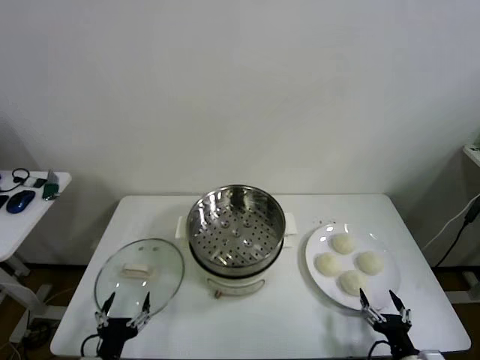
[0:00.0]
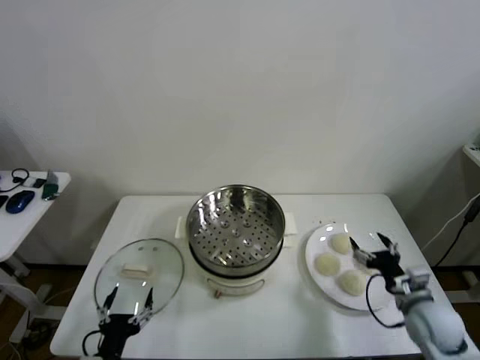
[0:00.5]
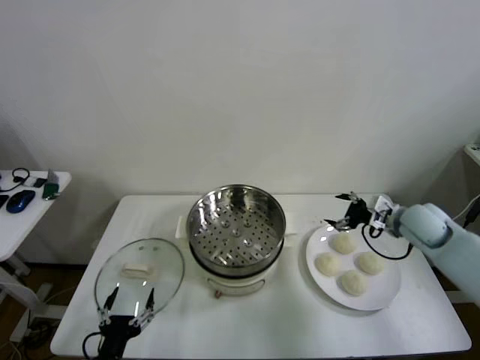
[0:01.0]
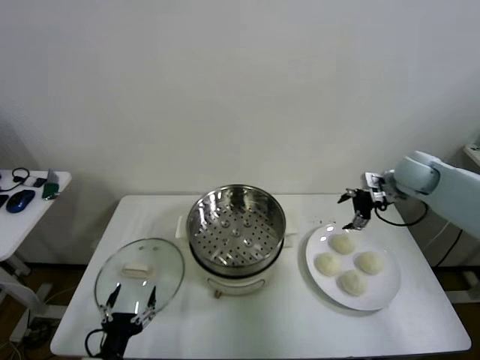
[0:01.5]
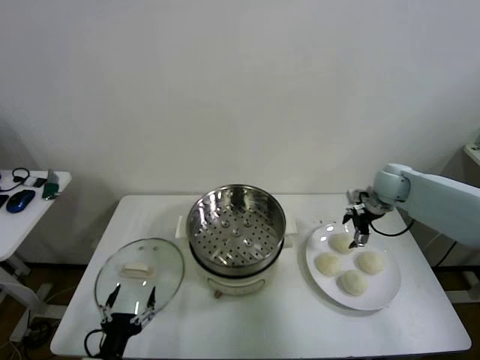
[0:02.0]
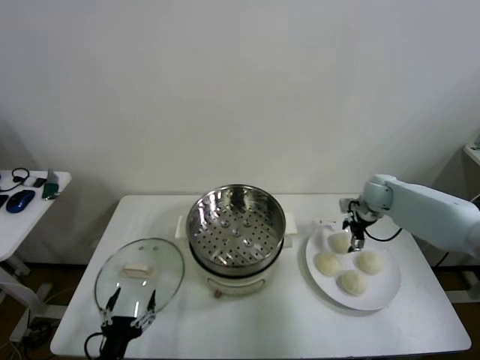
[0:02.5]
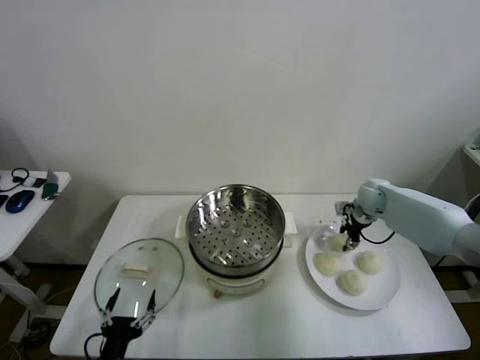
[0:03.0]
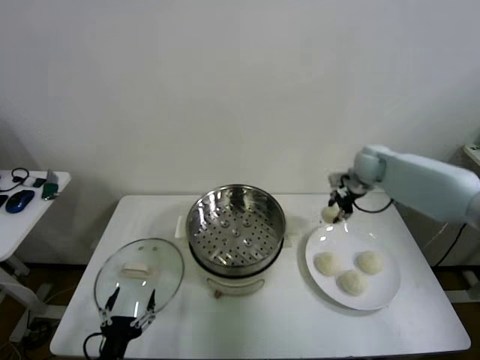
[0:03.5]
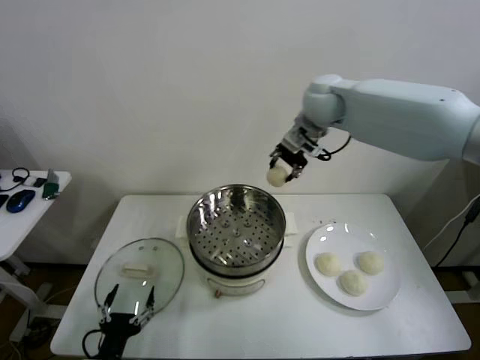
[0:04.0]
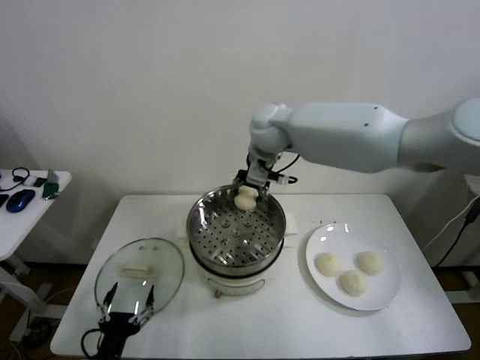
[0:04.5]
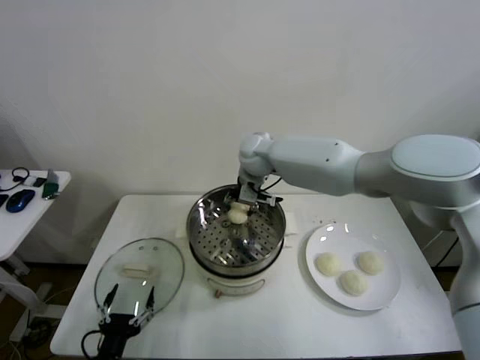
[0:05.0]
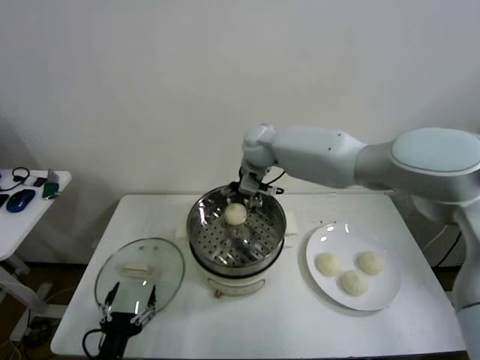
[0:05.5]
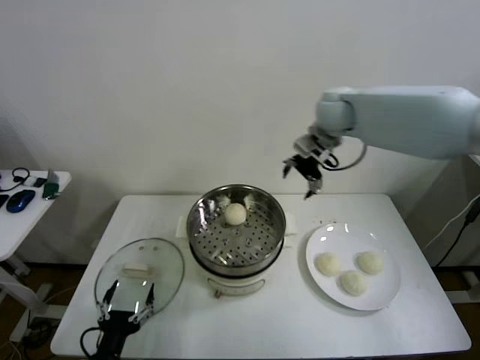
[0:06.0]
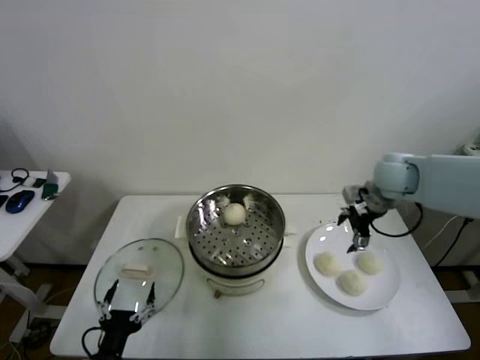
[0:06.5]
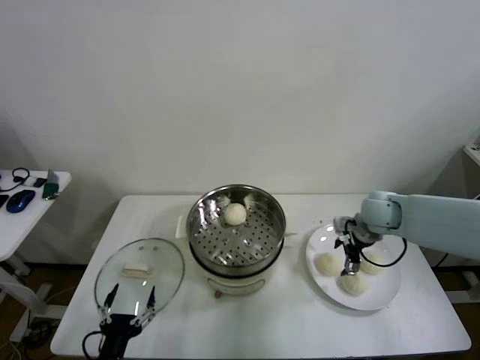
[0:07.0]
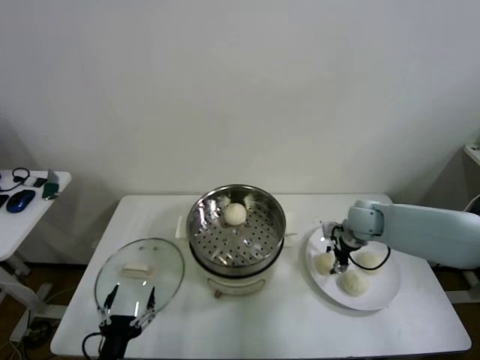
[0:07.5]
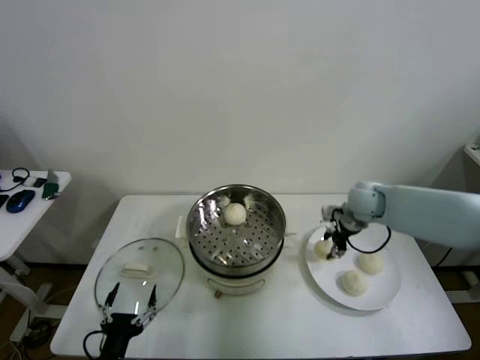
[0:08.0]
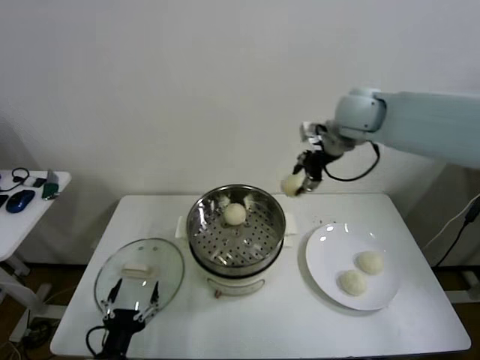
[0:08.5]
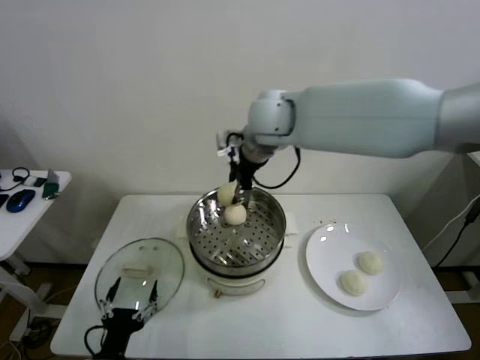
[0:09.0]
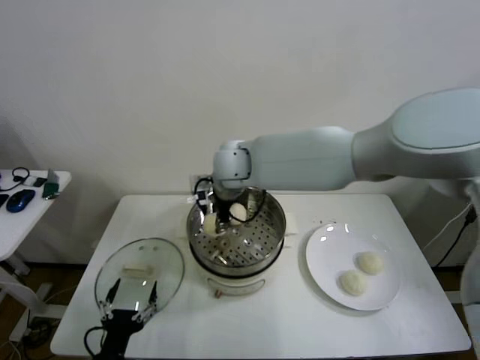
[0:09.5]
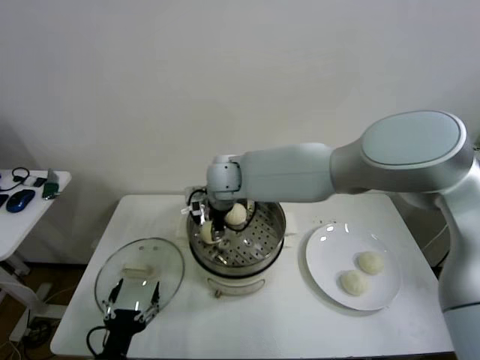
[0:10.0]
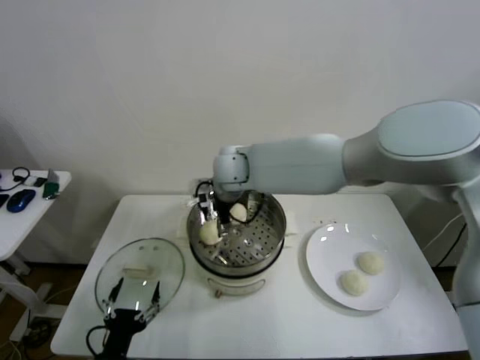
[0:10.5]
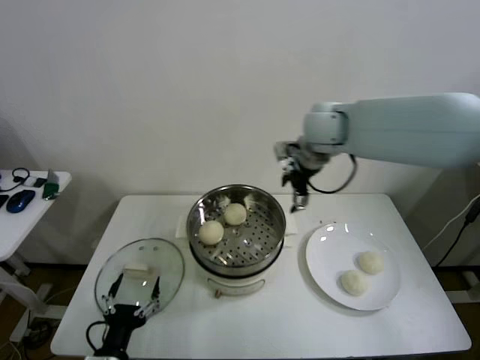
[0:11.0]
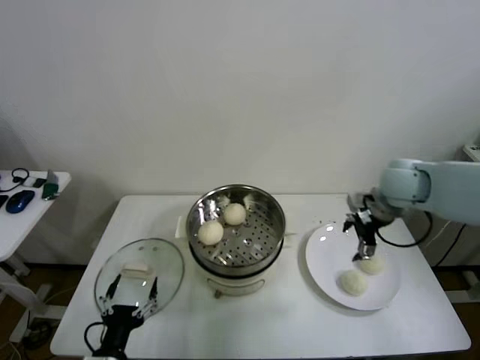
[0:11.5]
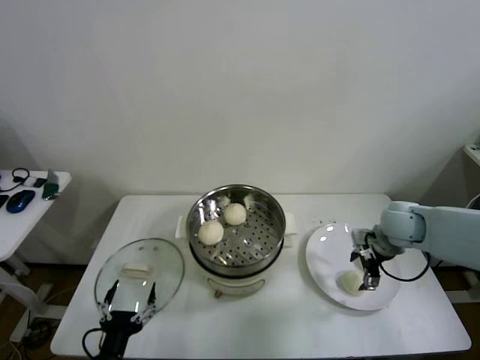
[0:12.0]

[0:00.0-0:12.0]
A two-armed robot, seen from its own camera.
Step, 0:00.0 to 0:02.5: Grasp the baozi in the plate with right gripper.
Step, 0:03.5 to 0:05.0: Place the baozi on the steamer with right gripper.
Step, 0:05.5 to 0:07.5: Grasp the baozi in the plate with right gripper.
Step, 0:08.0 to 0:10.0: Place the baozi on the steamer with right gripper.
0:02.0 to 0:04.0: The right gripper goes some 35 cm to the left and upward, and closes up.
0:04.0 to 0:06.0: The right gripper moves to the right, about 10 cm, and opens its fingers.
0:06.0 to 0:08.0: The right gripper moves downward, some 20 cm, and closes its fingers.
0:08.0 to 0:10.0: The right gripper goes approximately 35 cm to the left.
0:10.0 to 0:12.0: The right gripper moves to the right, some 40 cm, and opens.

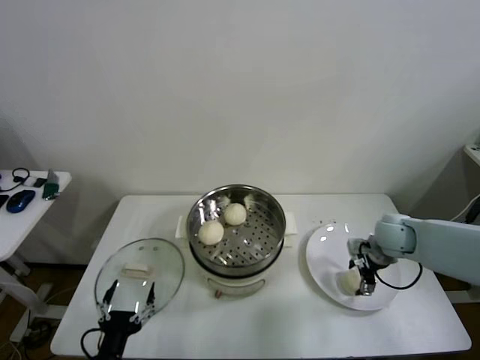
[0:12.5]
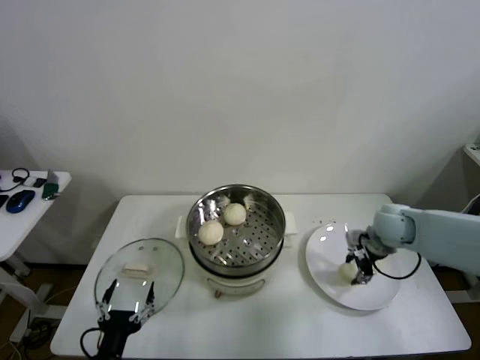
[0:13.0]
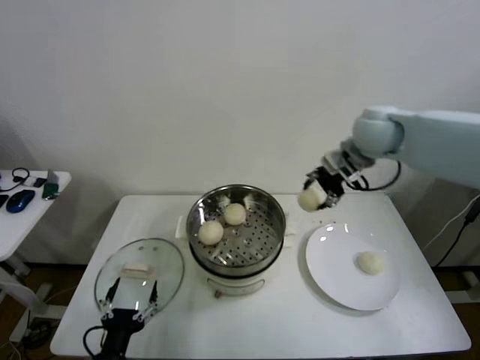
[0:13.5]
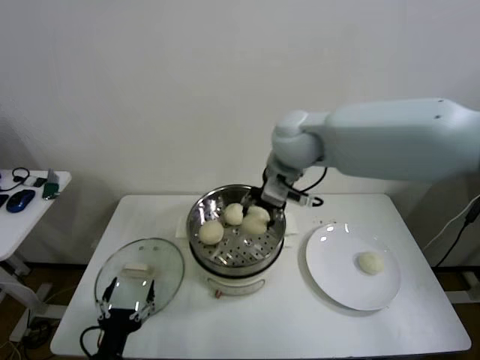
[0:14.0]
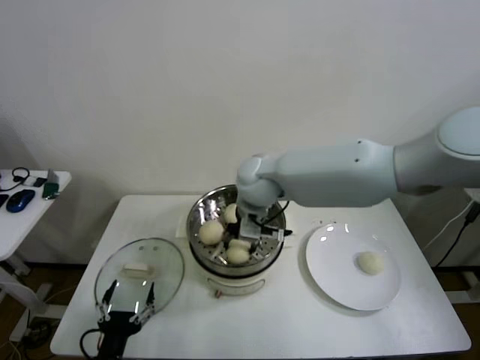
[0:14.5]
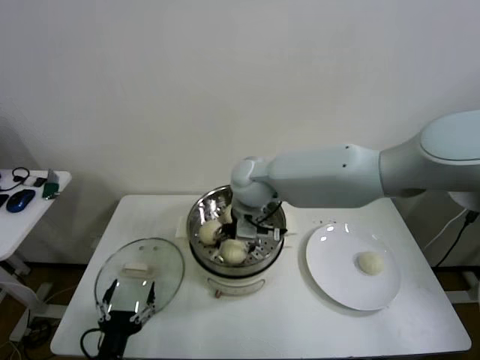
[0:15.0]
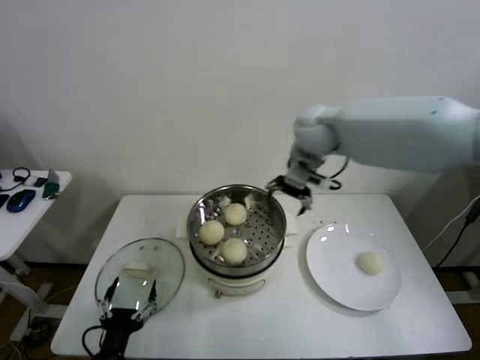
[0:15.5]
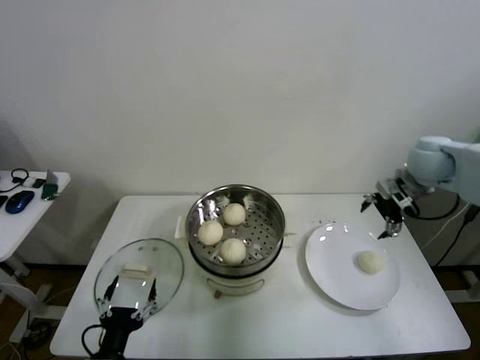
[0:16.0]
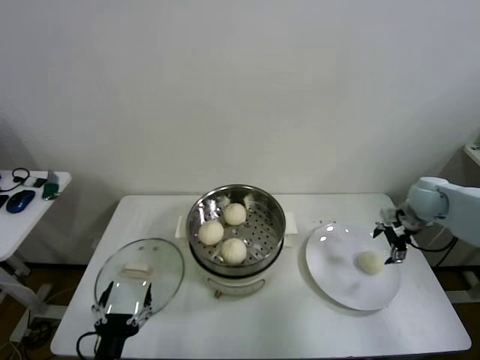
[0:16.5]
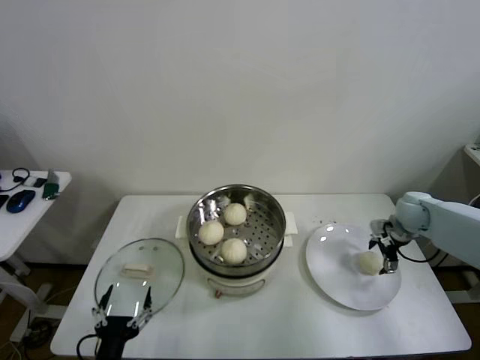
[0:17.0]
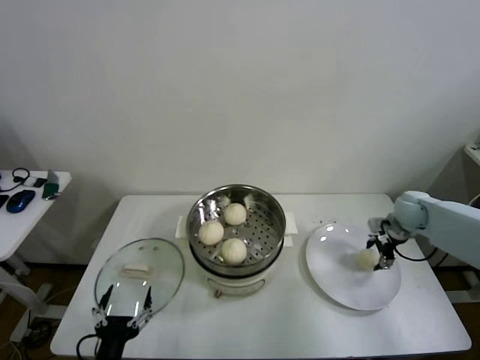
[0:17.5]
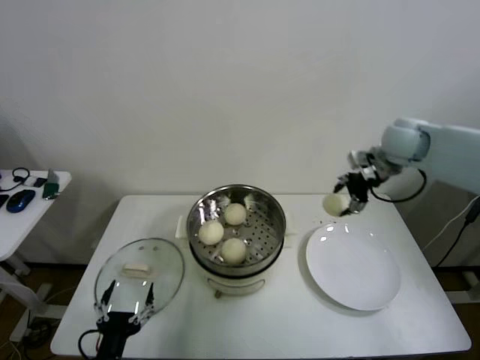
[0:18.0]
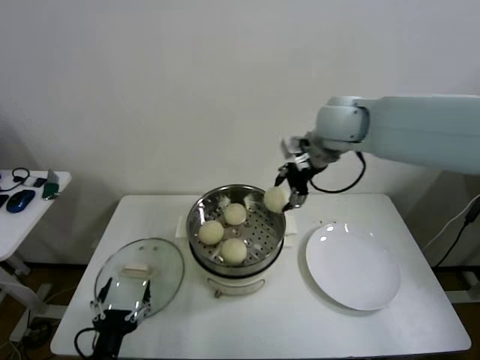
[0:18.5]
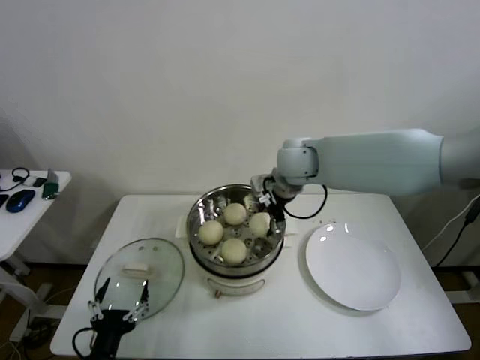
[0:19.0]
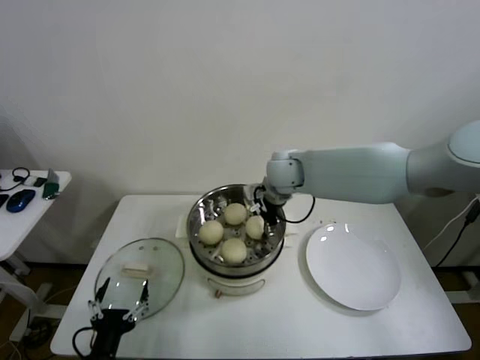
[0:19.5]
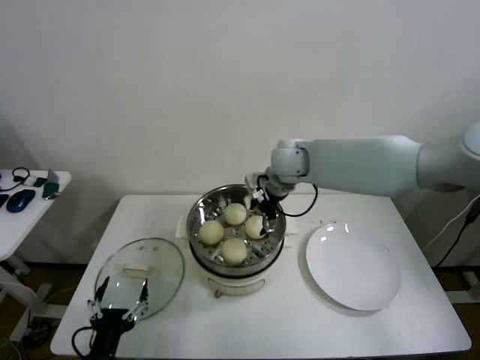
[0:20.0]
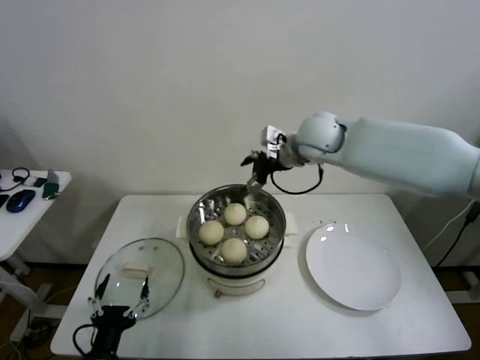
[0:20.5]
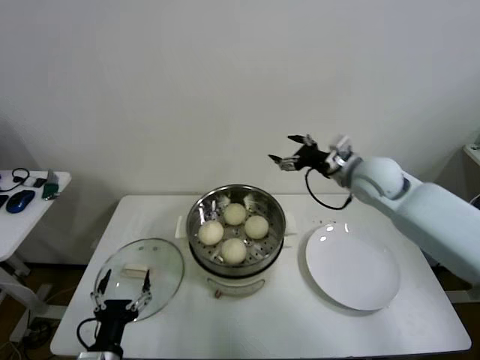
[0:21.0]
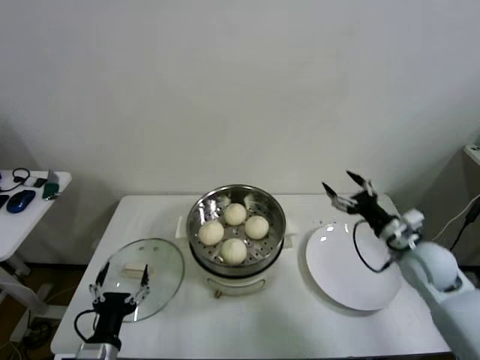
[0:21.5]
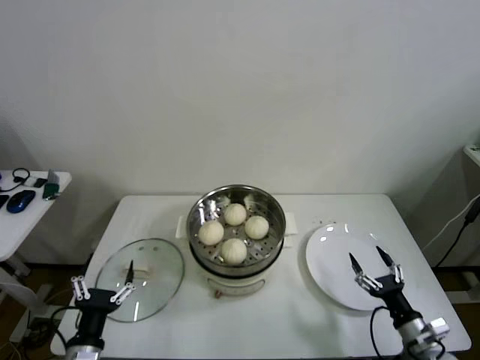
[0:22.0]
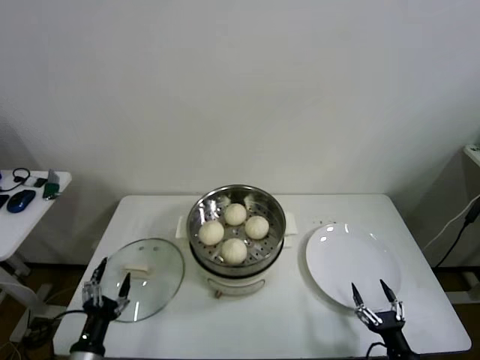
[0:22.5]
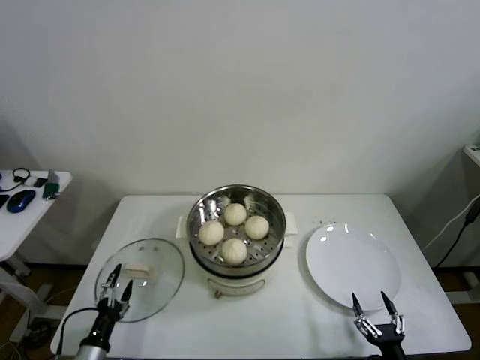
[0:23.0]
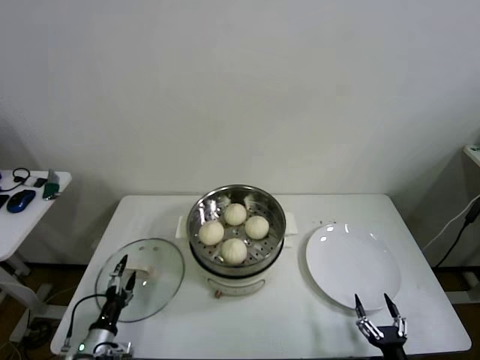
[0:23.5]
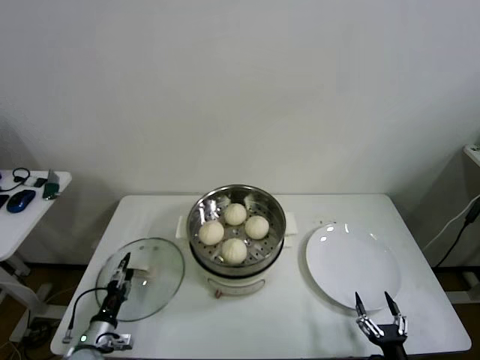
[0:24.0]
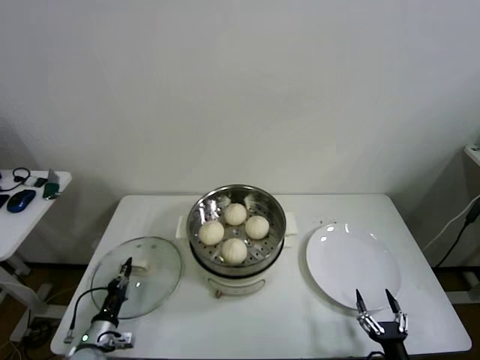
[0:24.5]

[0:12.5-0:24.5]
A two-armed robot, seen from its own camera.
Step, 0:13.0 to 0:14.5: Place the baozi on the steamer with right gripper.
Step, 0:15.0 to 0:17.0: Grasp the baozi in the plate with right gripper.
Step, 0:17.5 to 0:19.5: Place the baozi on the steamer with right gripper.
Step, 0:20.0 to 0:24.0: Grasp the pot lid with left gripper.
0:12.5 to 0:14.5: The right gripper heads to the left and upward, covering some 35 cm, and closes.
0:14.5 to 0:16.5: The right gripper shifts roughly 40 cm to the right, and opens up.
0:16.5 to 0:18.5: The right gripper moves to the left and upward, approximately 35 cm, and closes up.
0:18.5 to 0:20.5: The right gripper shifts some 5 cm downward, and opens up.
0:20.5 to 0:22.5: The left gripper heads to the left, covering approximately 5 cm; the right gripper moves downward, backward and to the right, approximately 60 cm.
0:22.5 to 0:24.5: The left gripper is displaced downward and forward by some 15 cm, and closes its fingers.

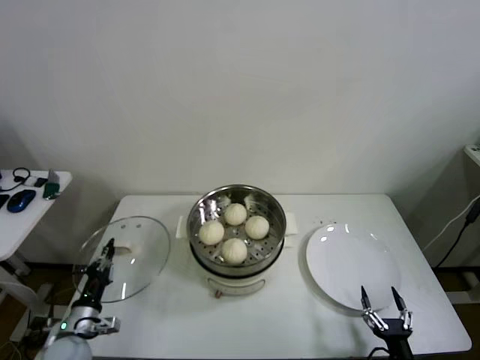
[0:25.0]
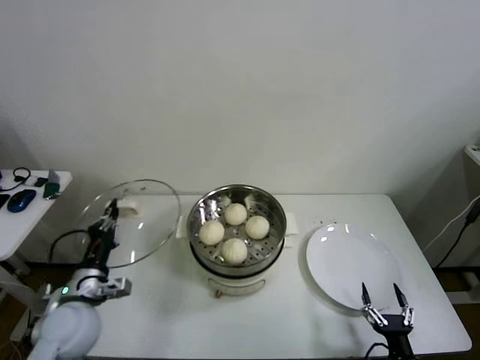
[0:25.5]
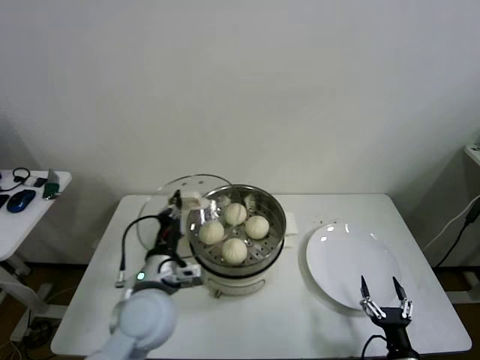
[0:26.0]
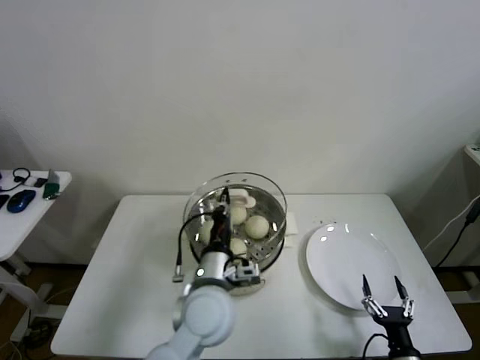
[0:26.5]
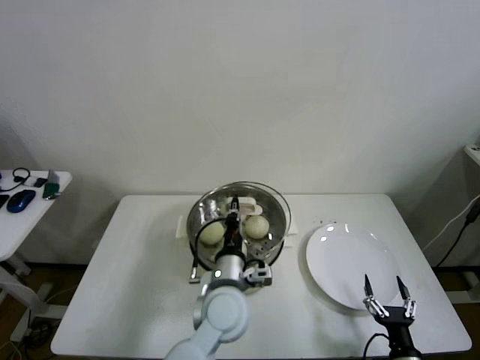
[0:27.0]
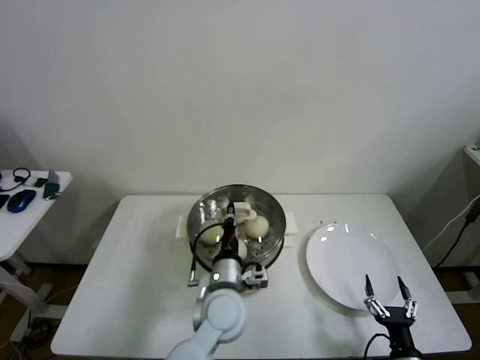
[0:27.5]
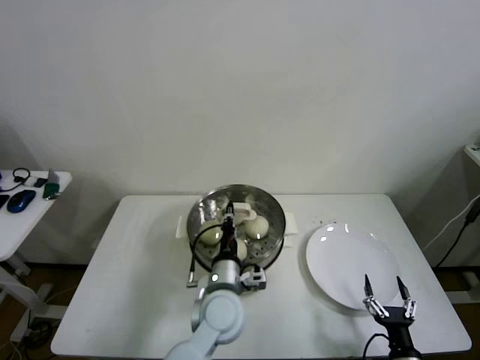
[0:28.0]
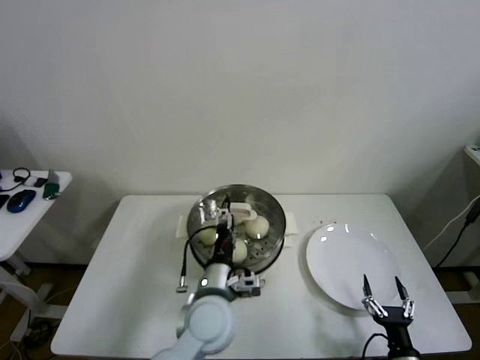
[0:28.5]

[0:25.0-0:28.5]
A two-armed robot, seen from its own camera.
Step, 0:25.0 to 0:28.0: Place the pot lid on the steamer with left gripper.
0:25.0 to 0:27.0: The left gripper shifts approximately 40 cm to the right and upward.
0:27.0 to 0:28.5: The left gripper opens up.
